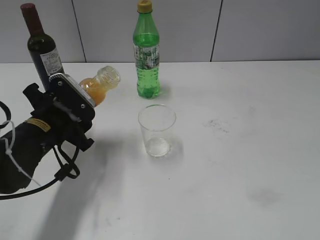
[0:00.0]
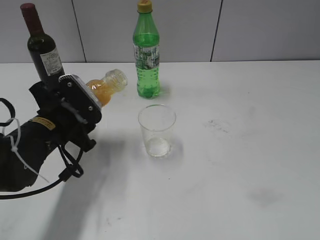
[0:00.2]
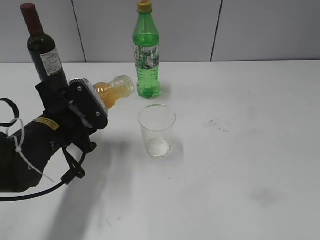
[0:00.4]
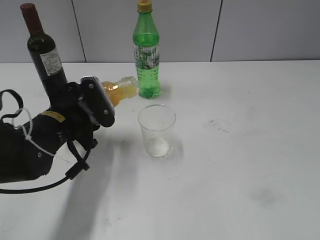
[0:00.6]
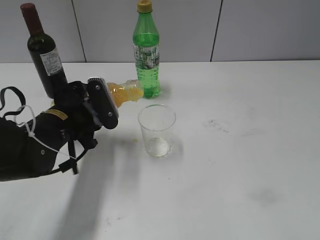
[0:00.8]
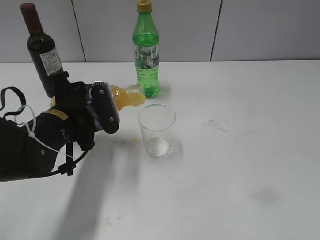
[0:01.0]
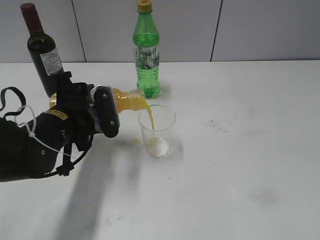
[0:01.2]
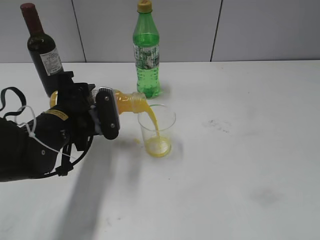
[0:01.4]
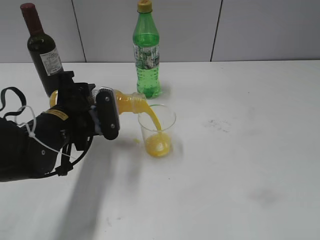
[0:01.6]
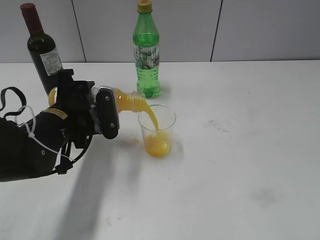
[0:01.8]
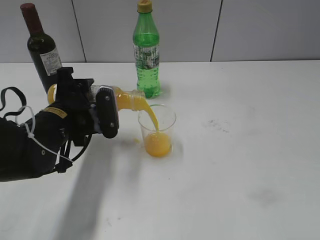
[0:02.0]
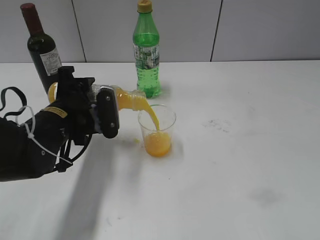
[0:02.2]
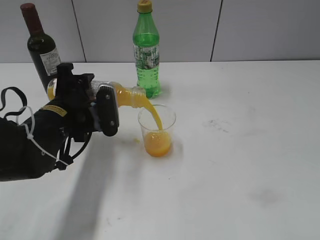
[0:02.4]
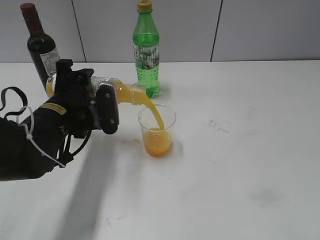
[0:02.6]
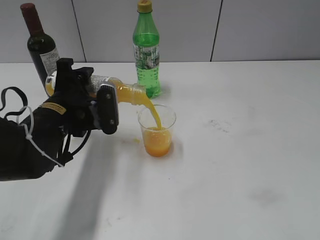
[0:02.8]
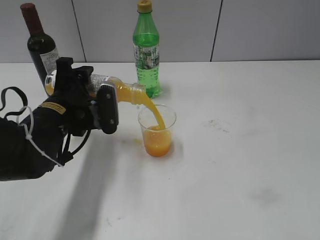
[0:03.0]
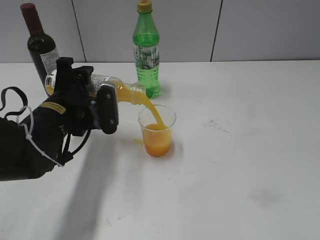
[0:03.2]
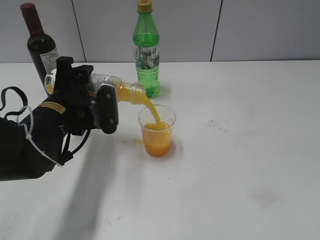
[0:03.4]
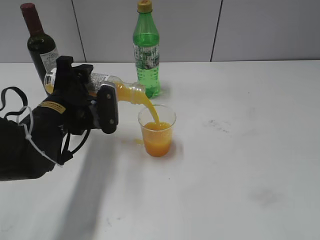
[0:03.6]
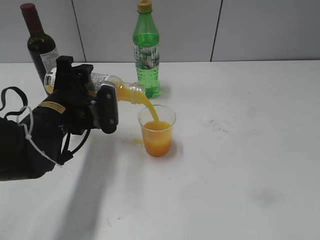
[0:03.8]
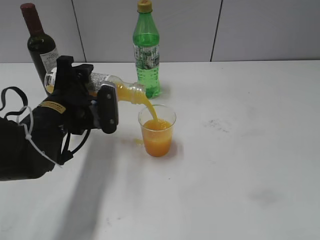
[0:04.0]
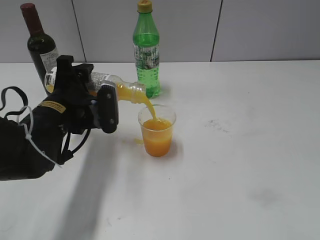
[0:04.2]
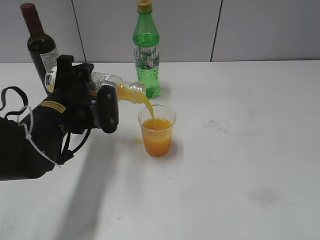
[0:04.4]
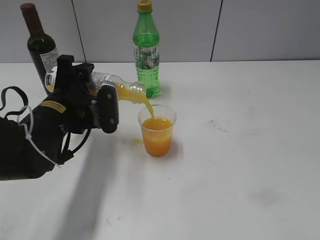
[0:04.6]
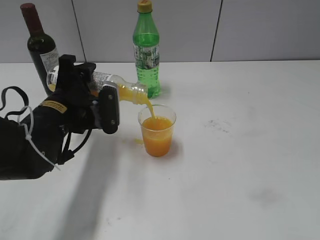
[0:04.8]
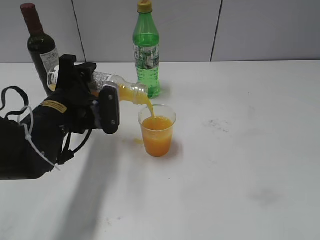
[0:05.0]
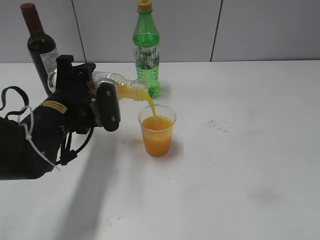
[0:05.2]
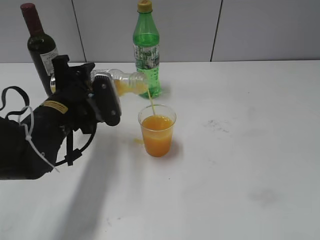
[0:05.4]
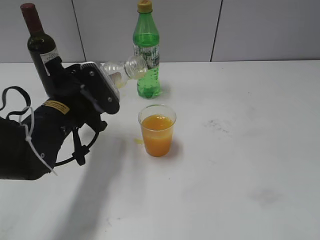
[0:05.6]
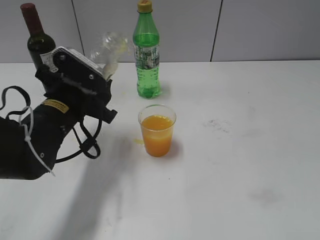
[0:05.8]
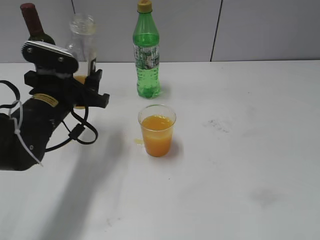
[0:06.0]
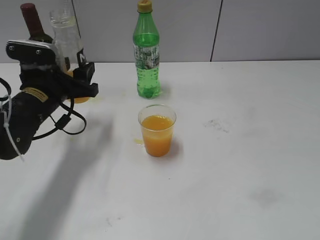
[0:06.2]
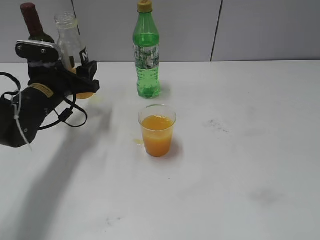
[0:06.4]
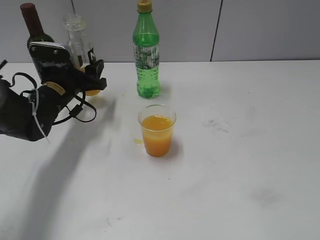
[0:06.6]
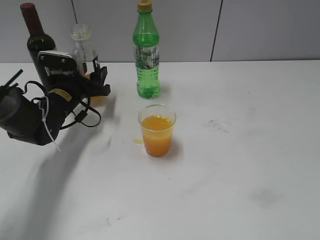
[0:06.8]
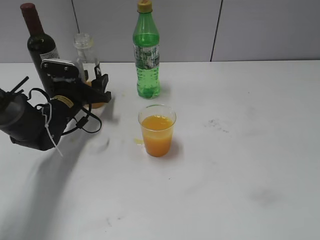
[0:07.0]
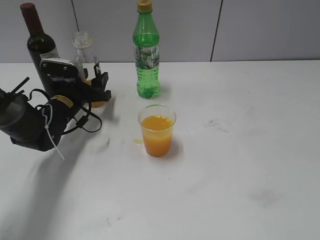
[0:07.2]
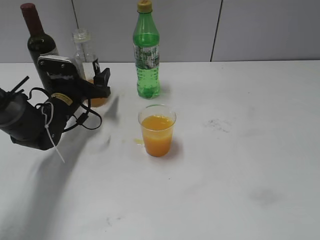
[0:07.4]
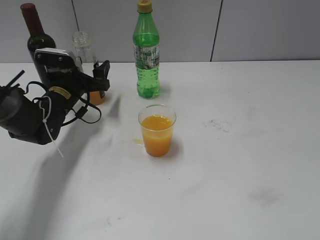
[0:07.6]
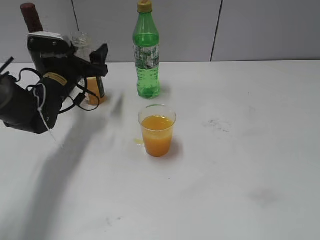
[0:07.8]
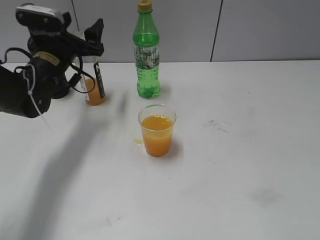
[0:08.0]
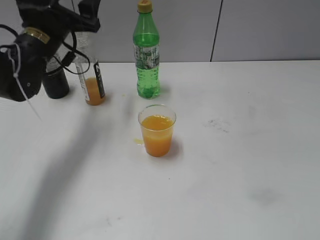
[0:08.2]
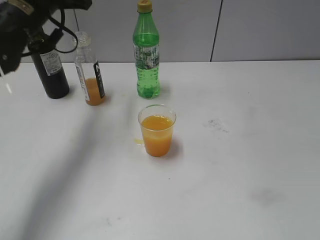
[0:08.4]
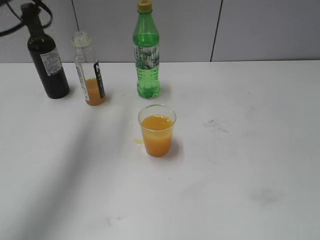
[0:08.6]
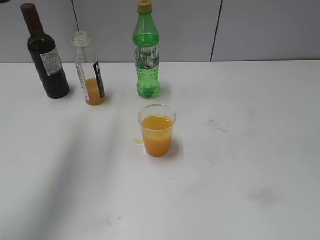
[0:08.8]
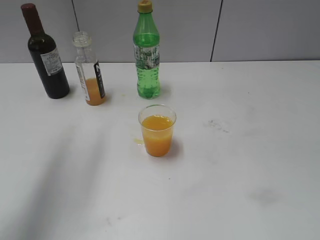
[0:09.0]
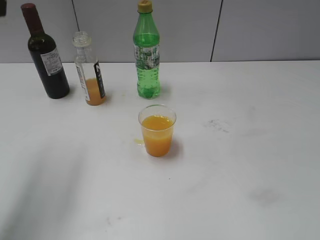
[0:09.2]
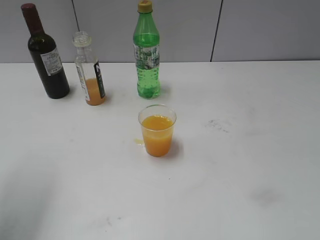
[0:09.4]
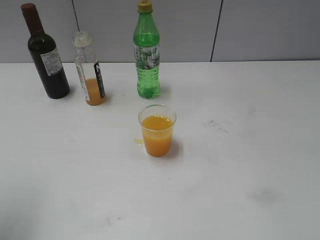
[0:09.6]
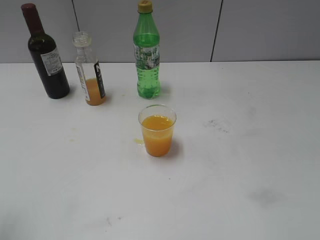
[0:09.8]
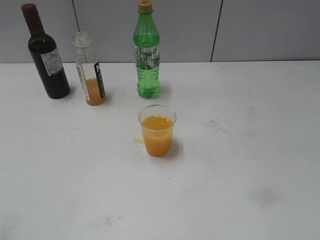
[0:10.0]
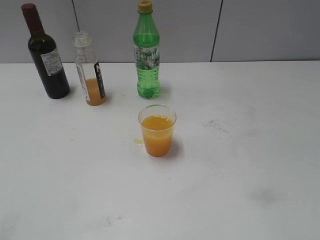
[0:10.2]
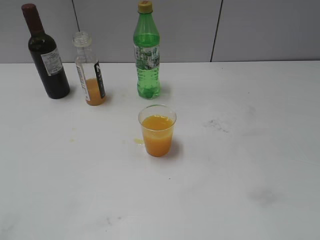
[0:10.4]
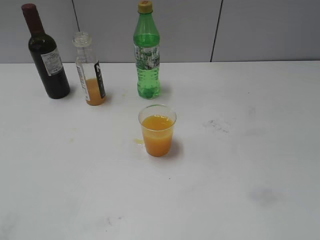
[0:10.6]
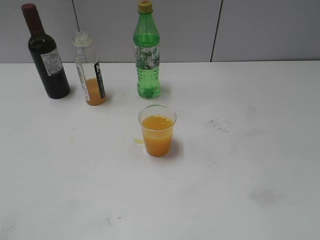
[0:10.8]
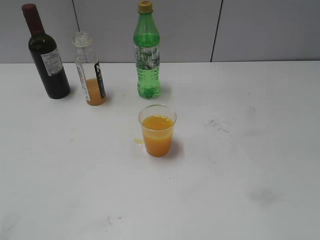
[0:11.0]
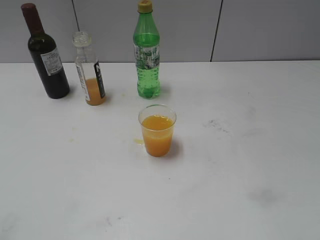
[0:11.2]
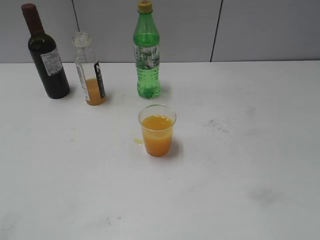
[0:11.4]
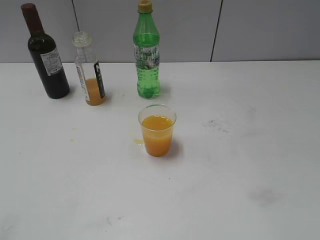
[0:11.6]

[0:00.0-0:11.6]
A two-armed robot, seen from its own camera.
Step, 0:00.0 to 0:05.4: Pour the orange juice from bottle to cup with left gripper.
Step, 0:05.8 to 0:07.6: Place the orange juice bottle on the table with left gripper.
0:01.4 to 0:02.8: There are only small adjustments of the grippers.
0:02.8 to 0:04.4: Both grippers stay put.
0:05.8 to 0:07.2: The left gripper travels forward and downward by some 15 cm.
0:07.2 to 0:08.8: The left gripper moves upward, some 30 cm, and opens up.
0:08.8 to 0:10.2: The left gripper travels backward by roughly 25 cm.
